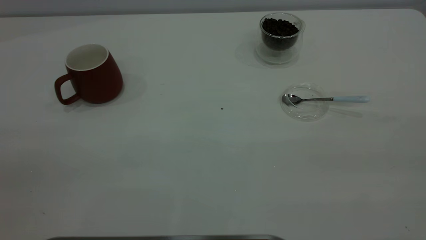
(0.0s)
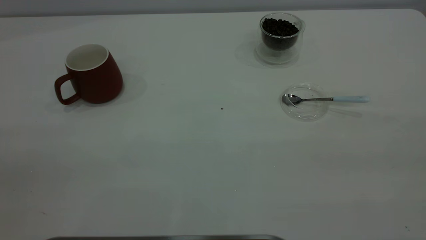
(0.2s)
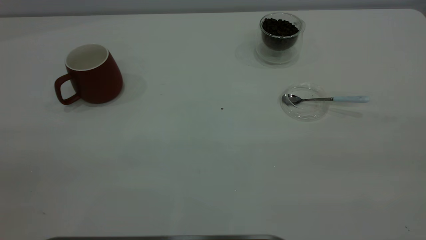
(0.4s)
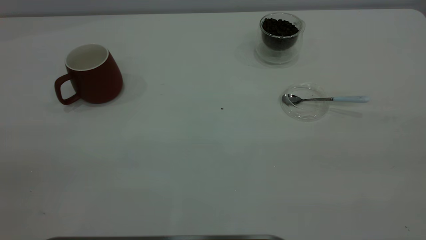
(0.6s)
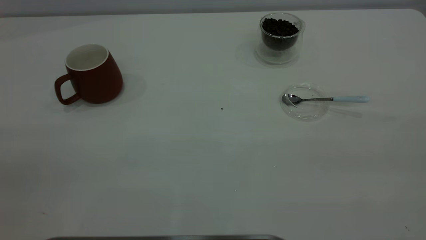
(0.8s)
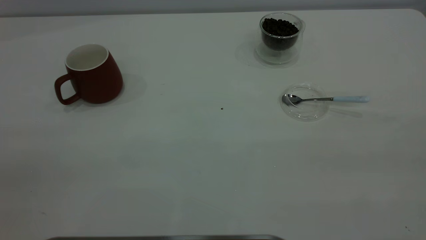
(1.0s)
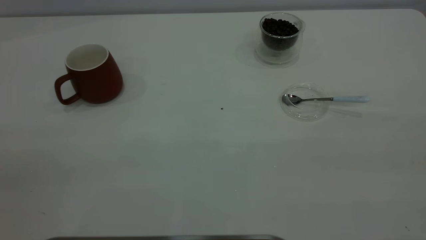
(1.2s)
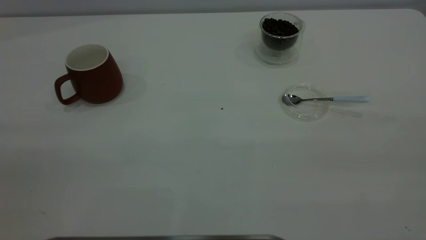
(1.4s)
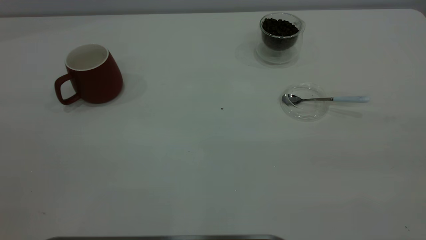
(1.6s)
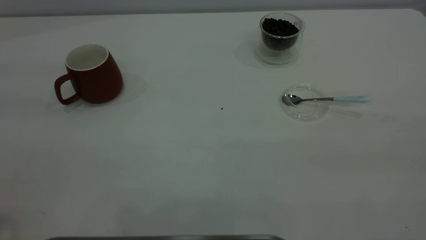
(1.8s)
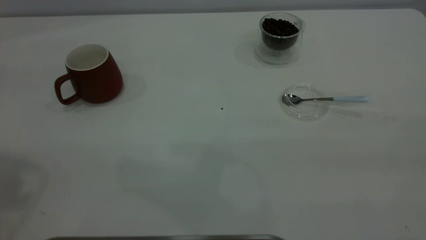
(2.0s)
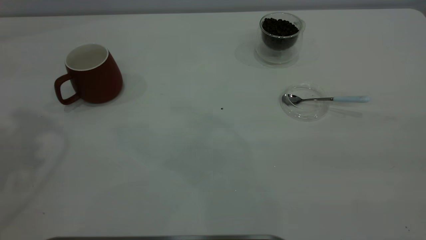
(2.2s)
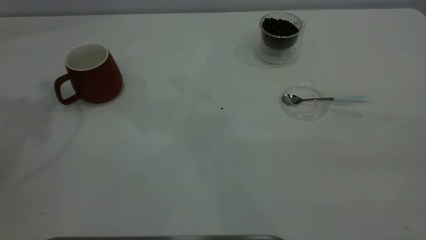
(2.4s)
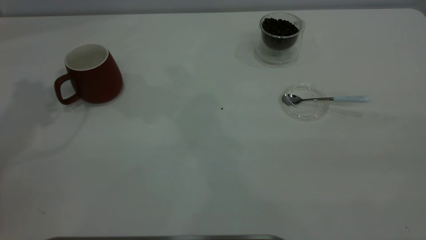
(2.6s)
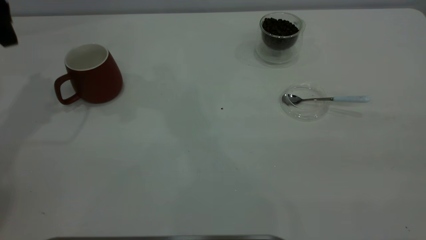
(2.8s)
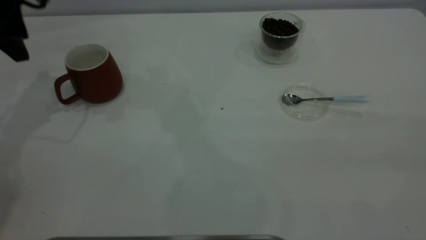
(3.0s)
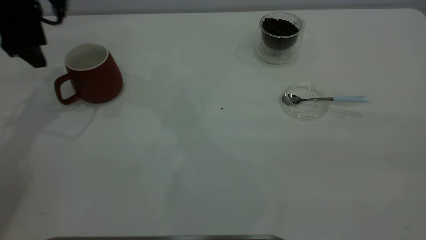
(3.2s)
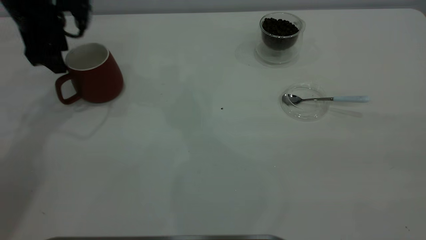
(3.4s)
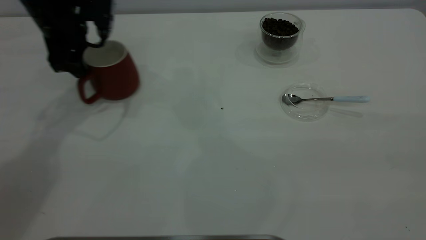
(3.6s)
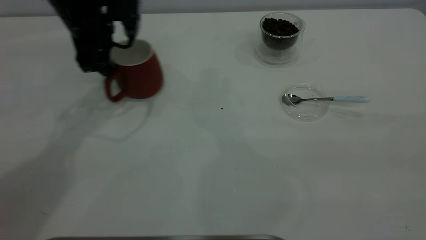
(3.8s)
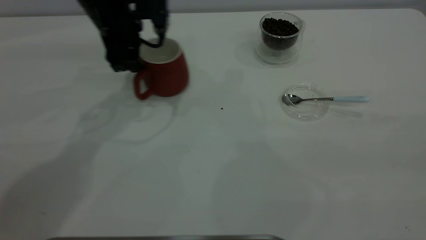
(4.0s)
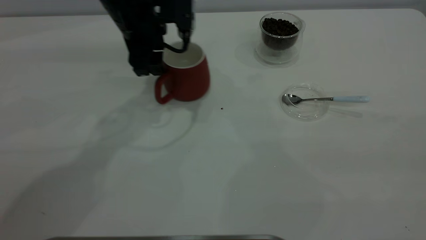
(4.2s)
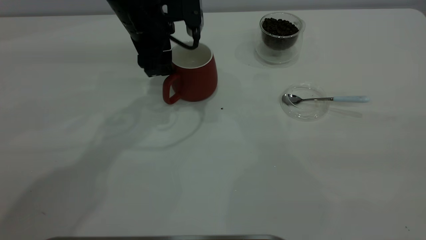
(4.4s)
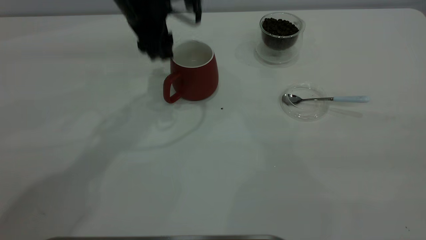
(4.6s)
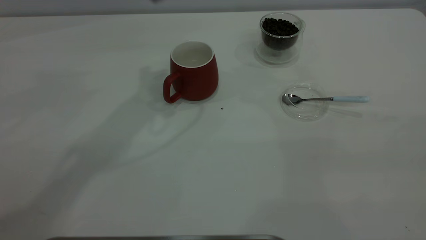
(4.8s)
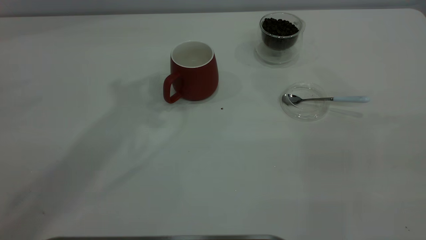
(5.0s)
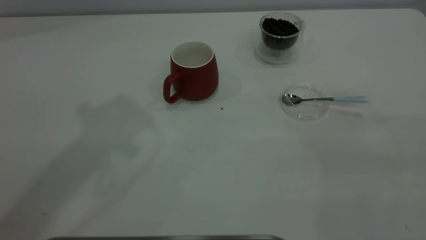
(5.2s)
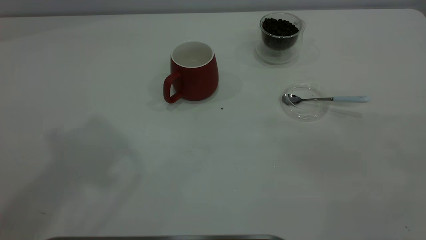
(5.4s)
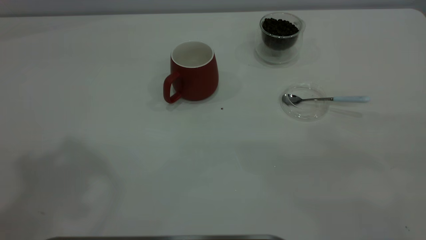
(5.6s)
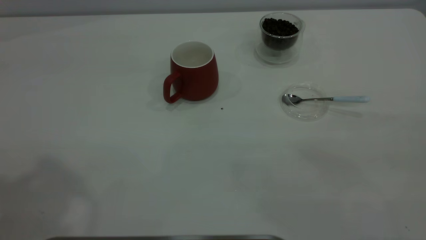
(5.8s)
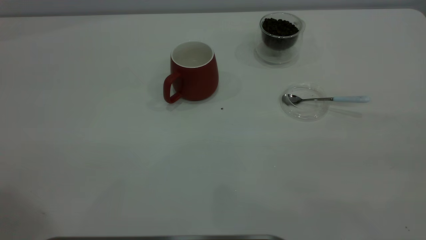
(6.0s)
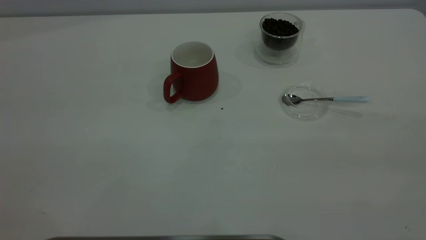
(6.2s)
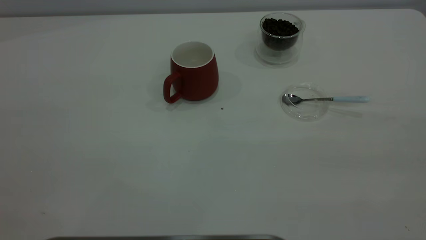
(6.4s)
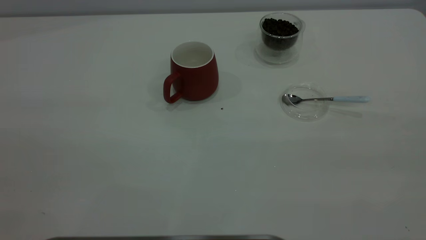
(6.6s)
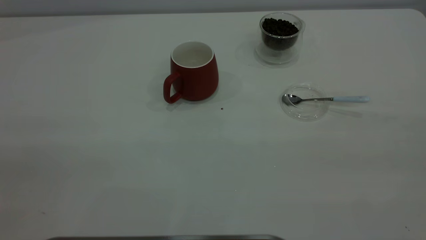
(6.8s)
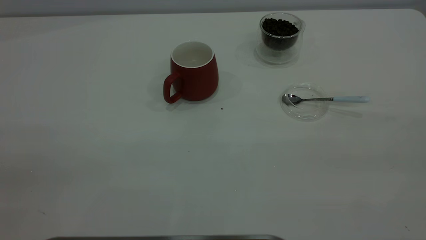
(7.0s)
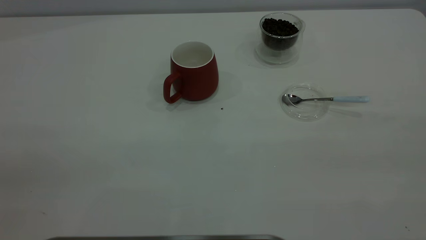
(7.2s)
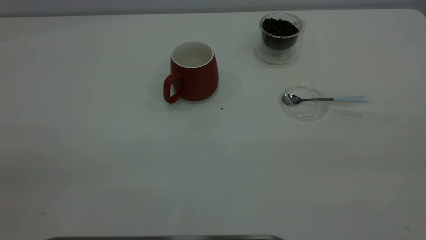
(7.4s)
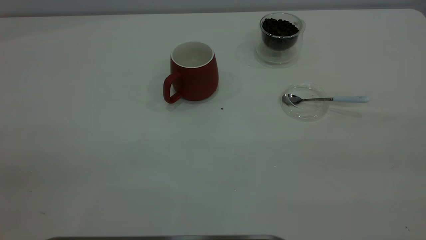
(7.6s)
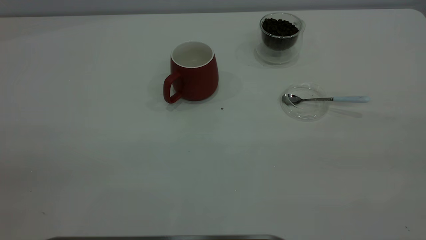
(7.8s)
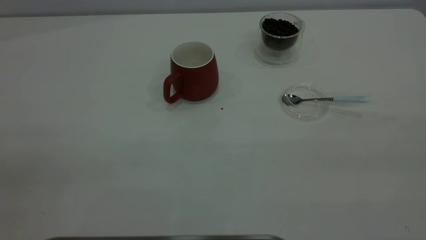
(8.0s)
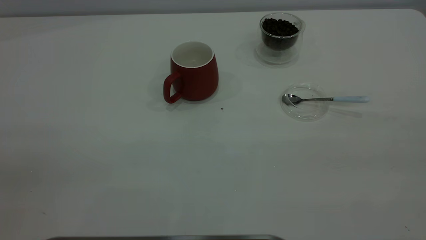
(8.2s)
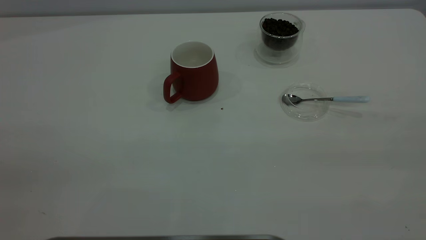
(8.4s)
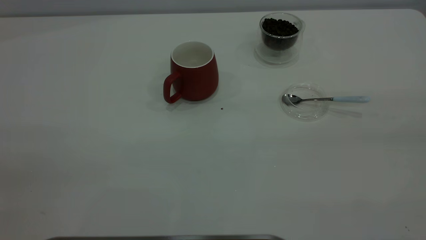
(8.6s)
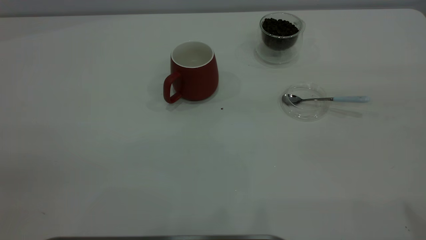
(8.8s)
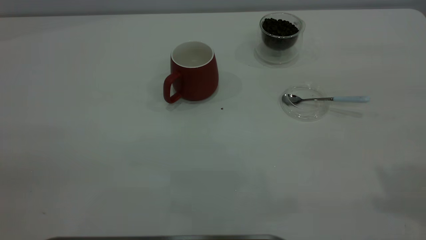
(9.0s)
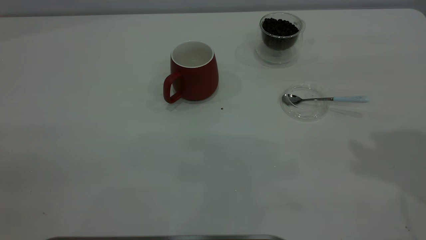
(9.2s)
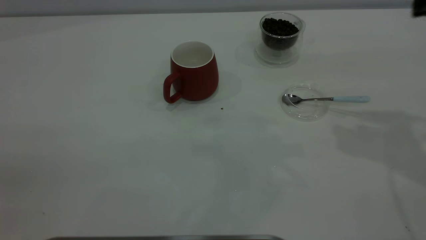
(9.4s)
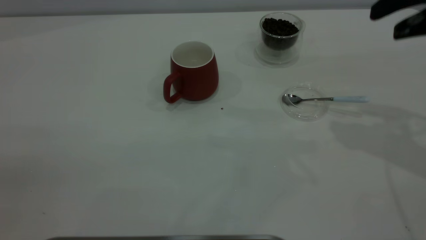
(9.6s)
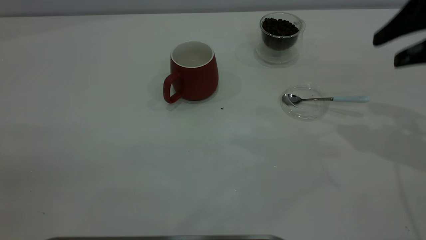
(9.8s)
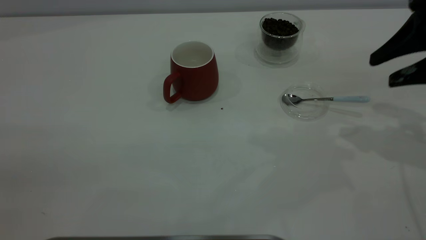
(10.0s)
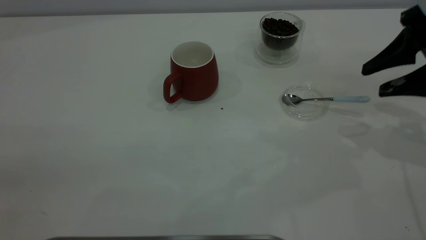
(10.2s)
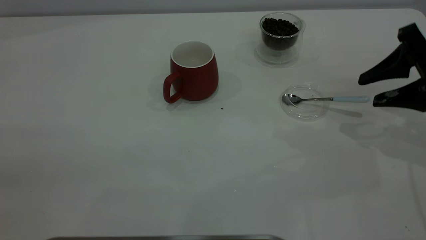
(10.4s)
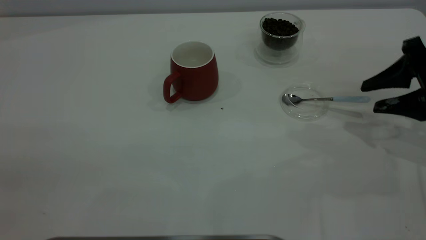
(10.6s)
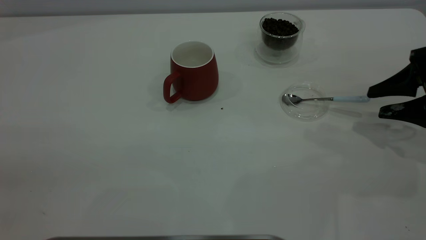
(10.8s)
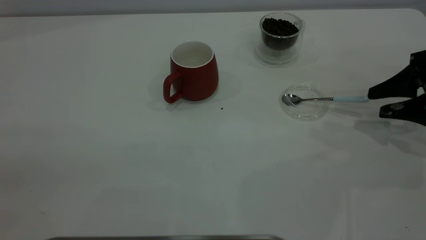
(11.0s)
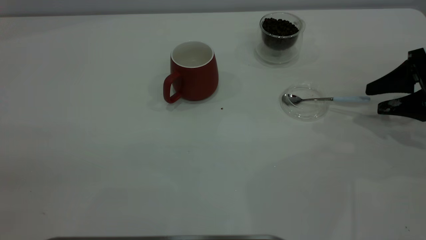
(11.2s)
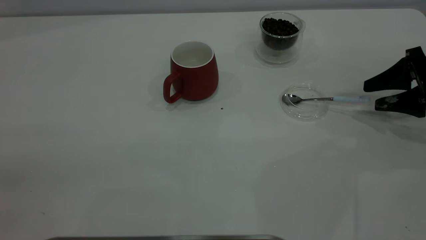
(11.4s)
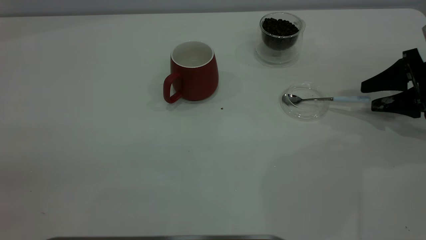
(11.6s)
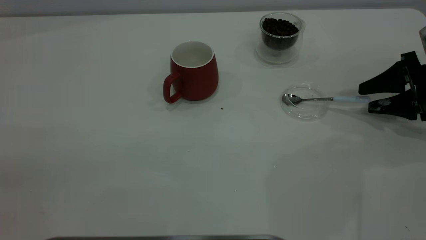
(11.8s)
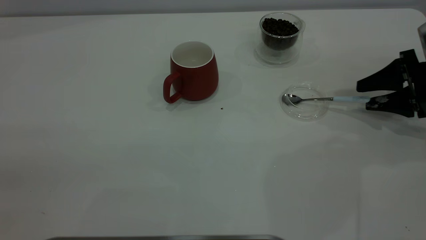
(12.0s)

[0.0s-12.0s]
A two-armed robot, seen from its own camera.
Task of the whole recording: the left gripper place the red cup in the center of the table, the right gripper take the blue spoon from the cup lid and scoop out the coffee beans from the coffee cup and put them into the red cup, the right gripper put the spoon back into the cup lid.
Step, 0.0s to 4.6s: Move the cup to the center of view.
1.6s to 3.0s: The left gripper travels forward and downward by approximately 40 cm.
3.0s to 4.4s: The left gripper is displaced to the right by approximately 20 cm.
4.4s to 6.0s: The left gripper is displaced upward, backward and to the left by some 50 cm.
9.0s to 10.4s: The right gripper travels downward and forward by roughly 25 cm.
10.4s to 12.0s: The right gripper travels downward and forward by about 10 cm.

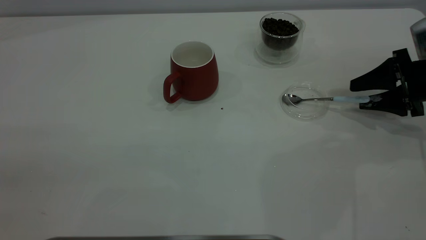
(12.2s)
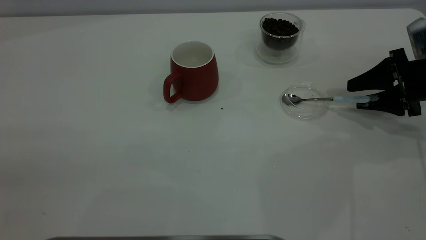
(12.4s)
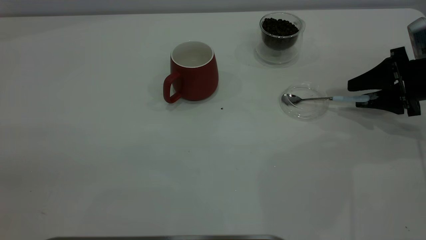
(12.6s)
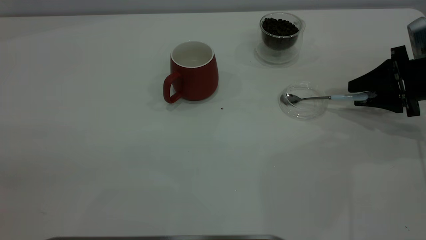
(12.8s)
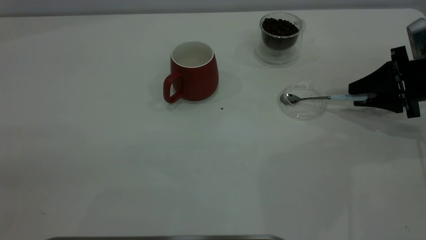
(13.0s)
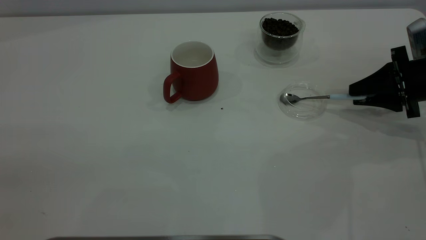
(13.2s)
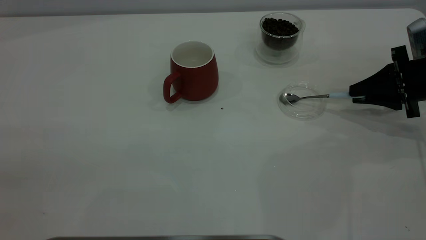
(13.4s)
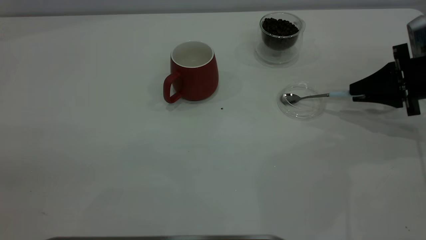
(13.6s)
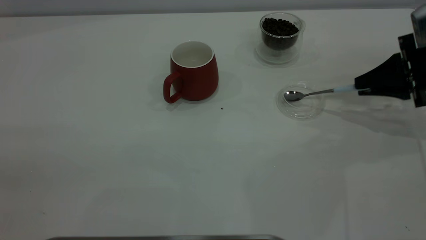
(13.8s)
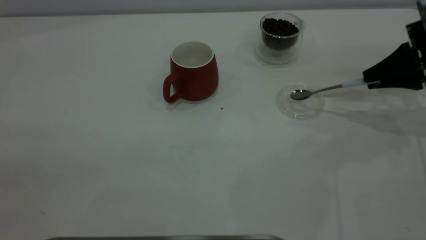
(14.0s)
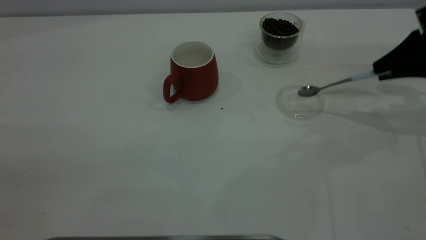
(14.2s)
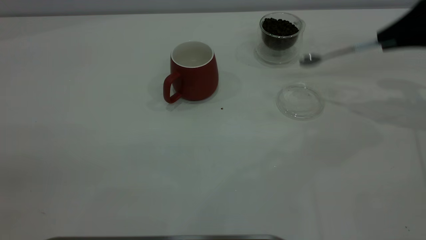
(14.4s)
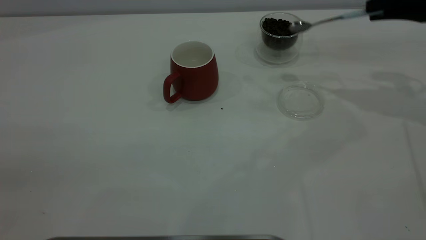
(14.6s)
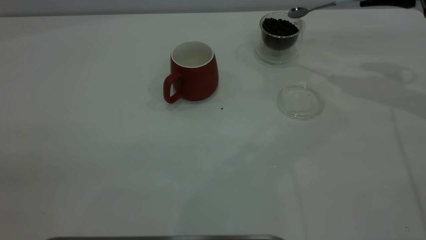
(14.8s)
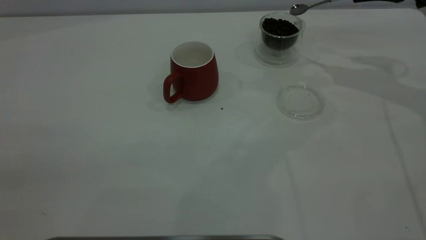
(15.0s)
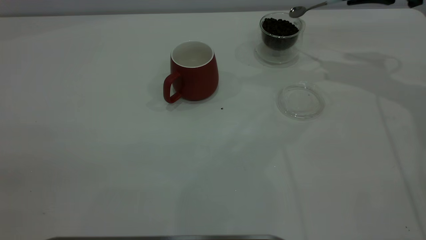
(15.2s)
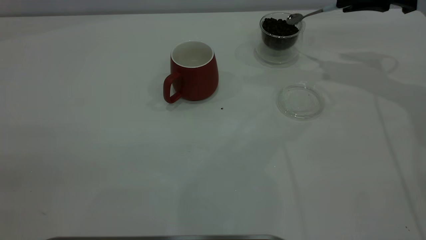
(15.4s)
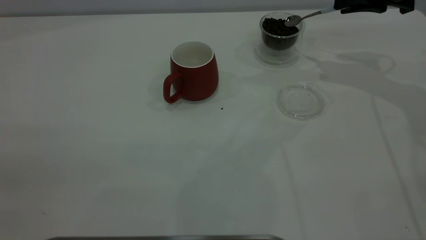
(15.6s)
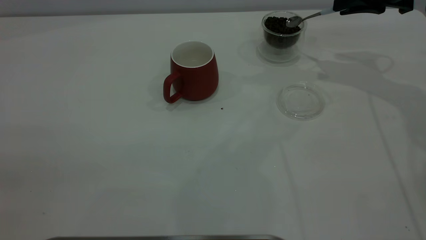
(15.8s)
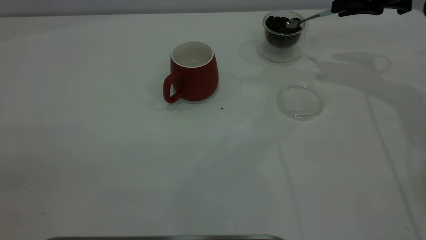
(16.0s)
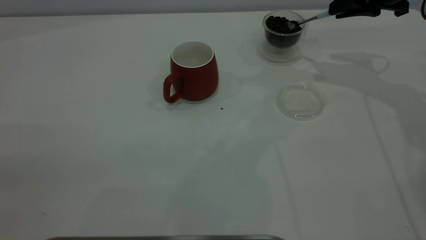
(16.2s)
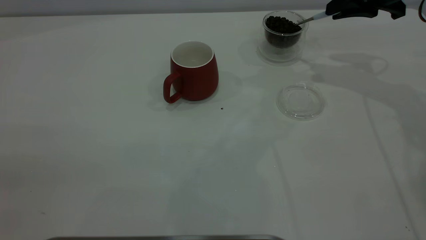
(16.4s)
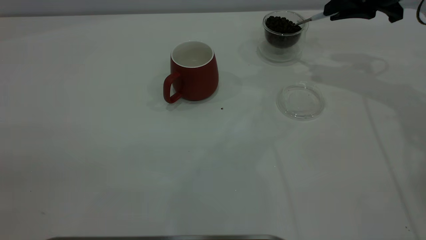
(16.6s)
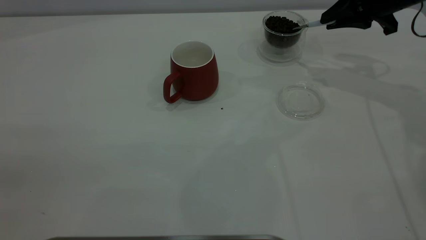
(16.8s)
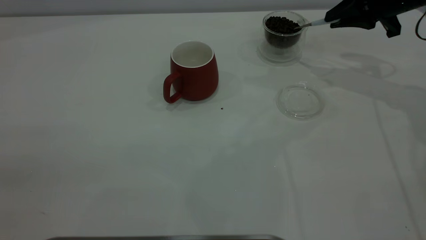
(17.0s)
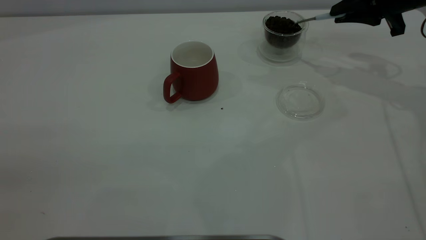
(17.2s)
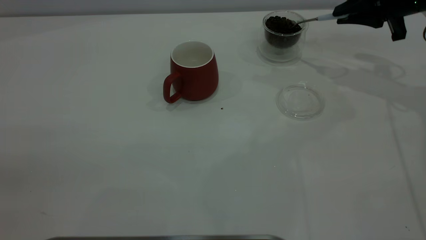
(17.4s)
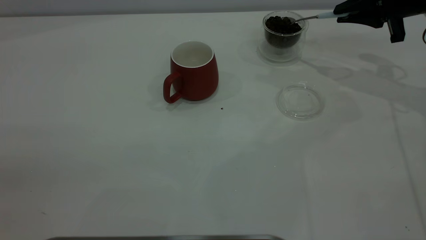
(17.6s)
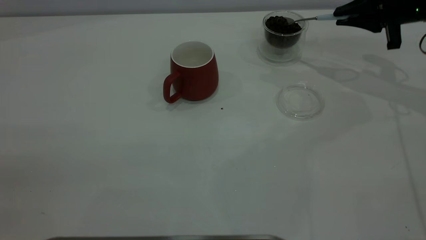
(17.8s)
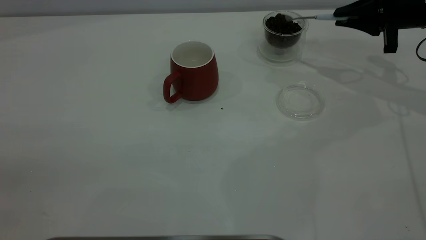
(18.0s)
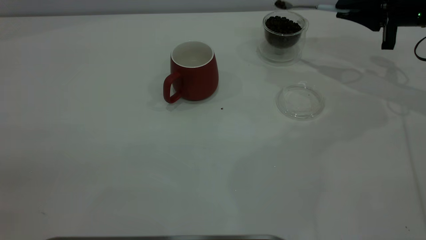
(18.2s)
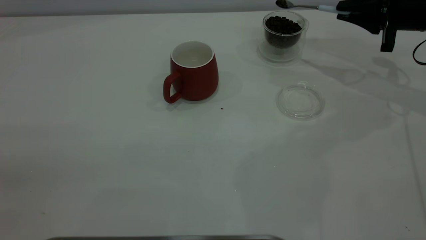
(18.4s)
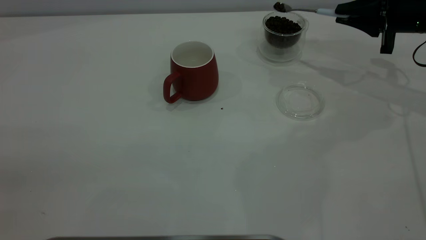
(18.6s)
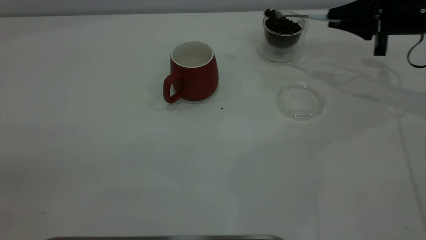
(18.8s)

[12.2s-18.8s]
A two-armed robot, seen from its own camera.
Task of the whole recording: the left gripper place the red cup in the center of the table, the right gripper take the blue spoon from the cup lid and scoop out the coffee beans from the coffee cup and put them into the red cup, the right gripper put the spoon back into the cup lid.
Step, 12.2s to 14.2s: Pick up the spoon.
12.2s to 13.8s: The right gripper closes its fingers.
13.8s to 15.4s: The right gripper goes approximately 15 cm upward, forward and to the left.
